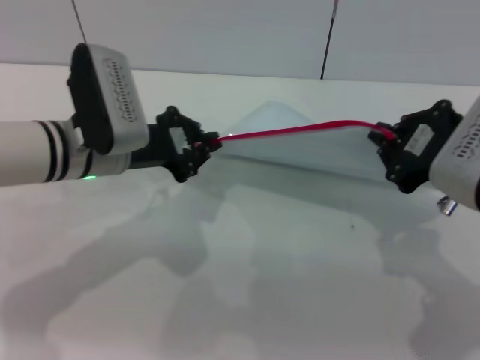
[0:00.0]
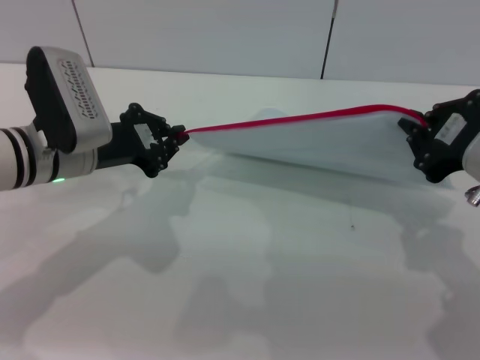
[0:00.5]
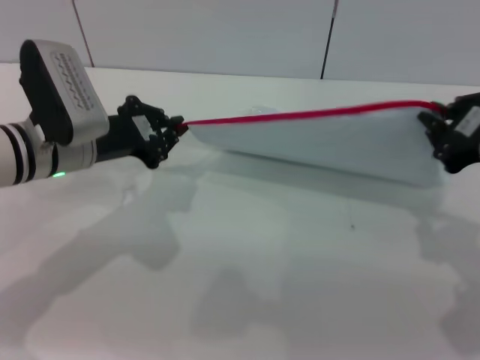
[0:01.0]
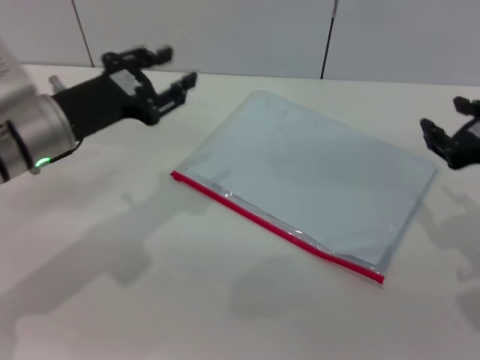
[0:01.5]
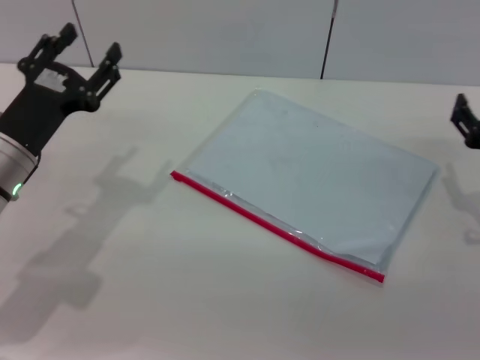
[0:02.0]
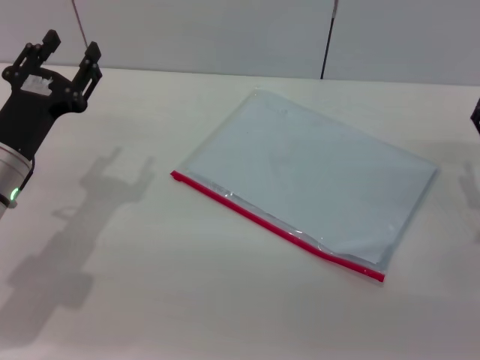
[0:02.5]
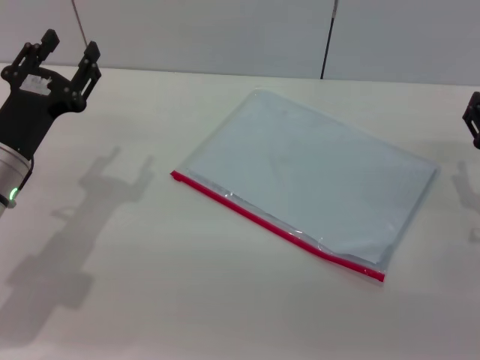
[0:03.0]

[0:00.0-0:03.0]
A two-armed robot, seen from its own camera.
0:00.0 to 0:01.5: The left gripper ends up approximately 5 cm from where it was. Meanwhile the right gripper moves to the right, about 5 cm.
0:01.5 to 0:03.0: The left gripper is displaced downward by approximately 5 cm, and opens. The right gripper is displaced downward by approximately 10 cm, and opens up.
